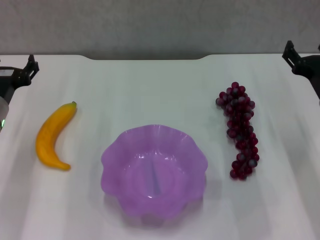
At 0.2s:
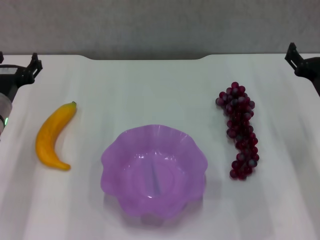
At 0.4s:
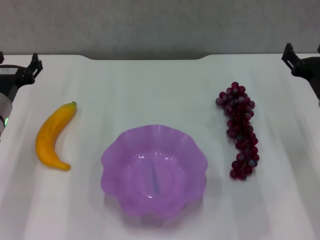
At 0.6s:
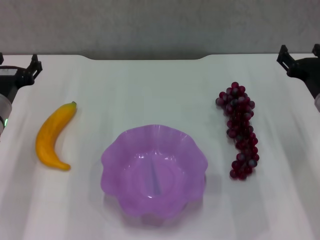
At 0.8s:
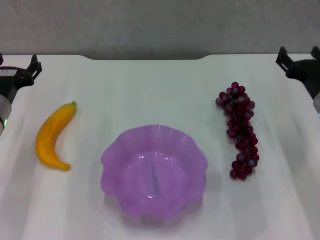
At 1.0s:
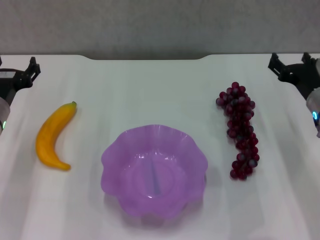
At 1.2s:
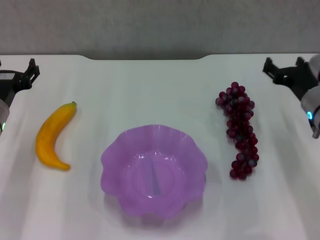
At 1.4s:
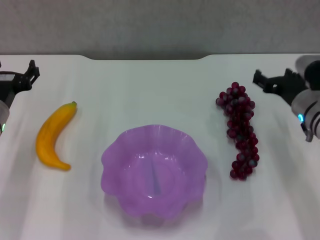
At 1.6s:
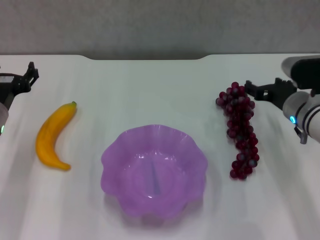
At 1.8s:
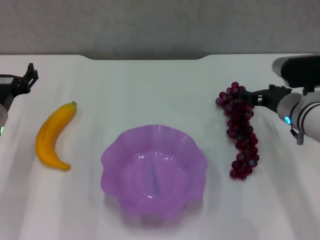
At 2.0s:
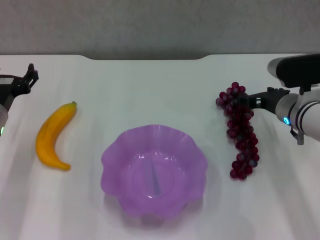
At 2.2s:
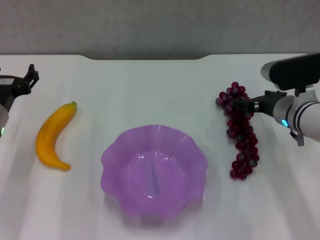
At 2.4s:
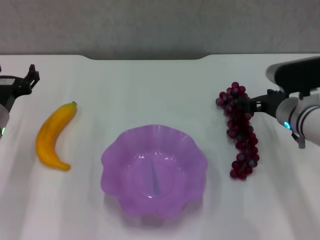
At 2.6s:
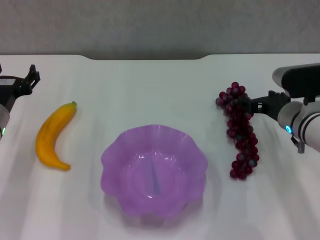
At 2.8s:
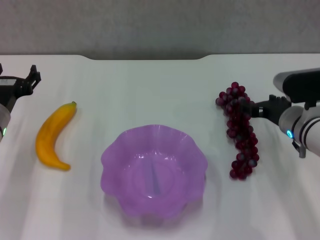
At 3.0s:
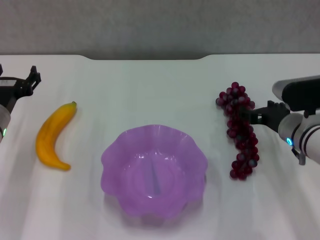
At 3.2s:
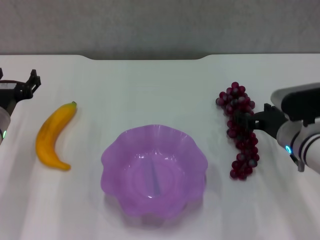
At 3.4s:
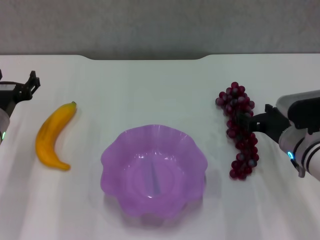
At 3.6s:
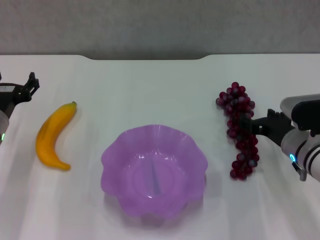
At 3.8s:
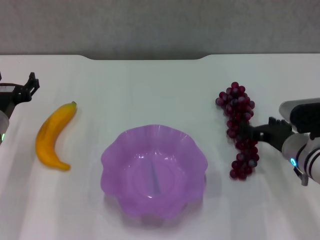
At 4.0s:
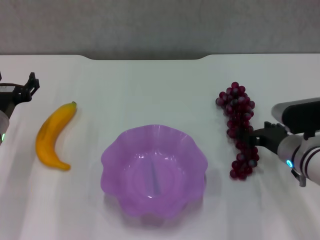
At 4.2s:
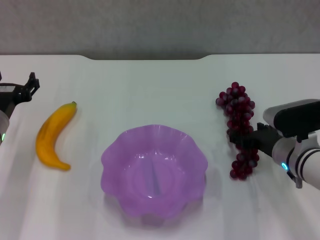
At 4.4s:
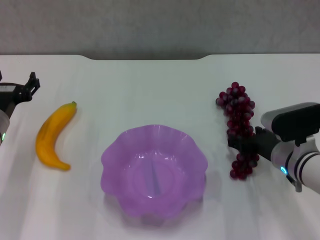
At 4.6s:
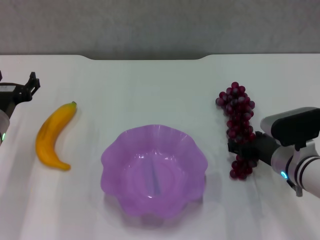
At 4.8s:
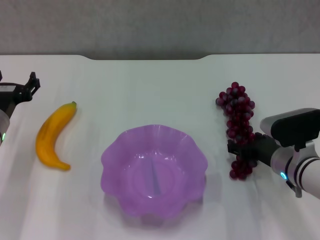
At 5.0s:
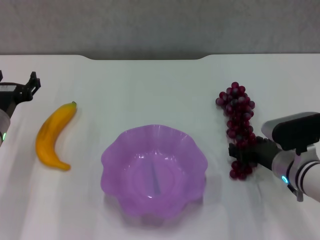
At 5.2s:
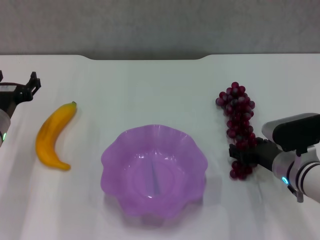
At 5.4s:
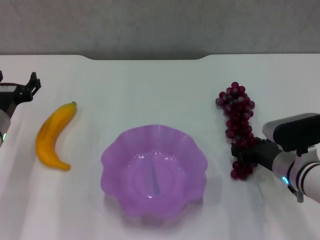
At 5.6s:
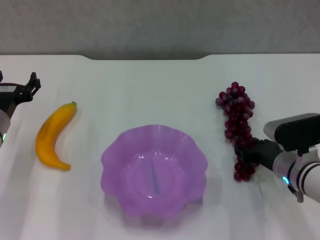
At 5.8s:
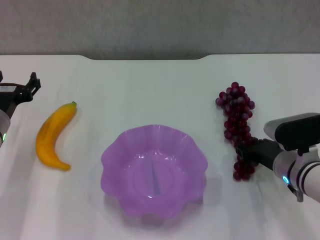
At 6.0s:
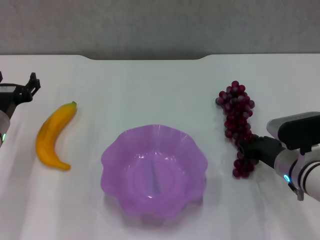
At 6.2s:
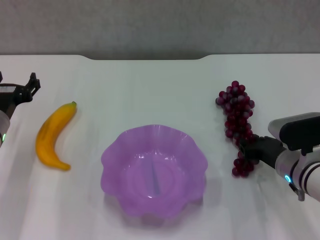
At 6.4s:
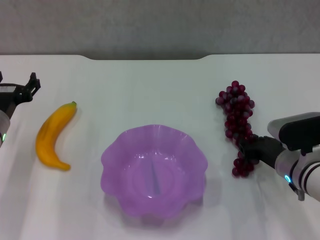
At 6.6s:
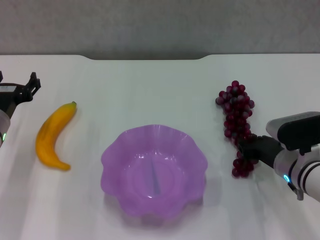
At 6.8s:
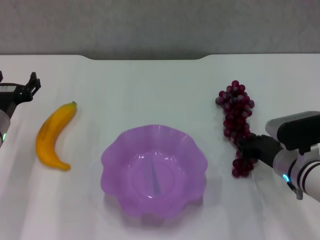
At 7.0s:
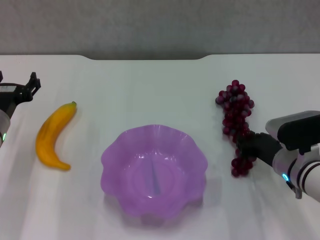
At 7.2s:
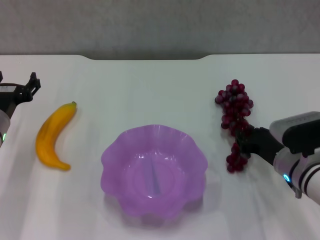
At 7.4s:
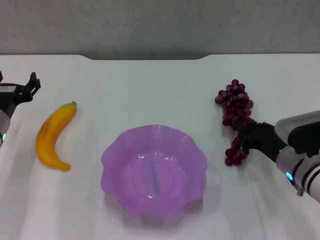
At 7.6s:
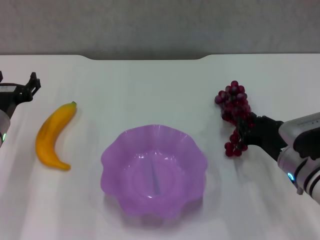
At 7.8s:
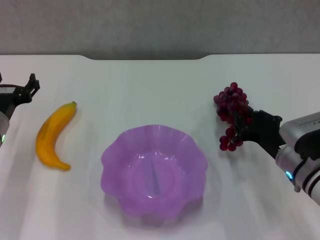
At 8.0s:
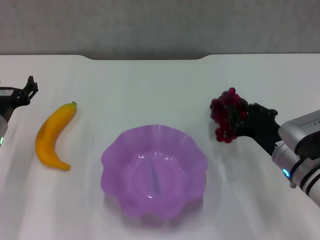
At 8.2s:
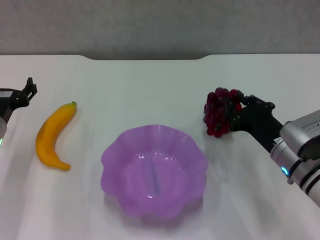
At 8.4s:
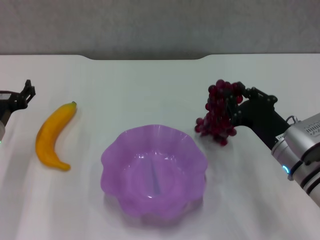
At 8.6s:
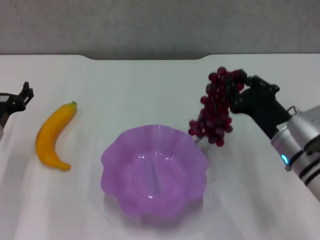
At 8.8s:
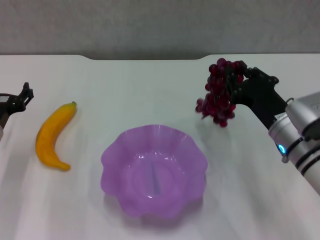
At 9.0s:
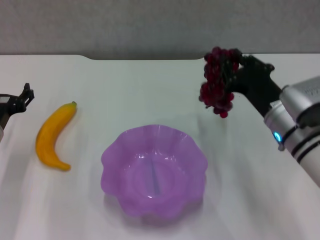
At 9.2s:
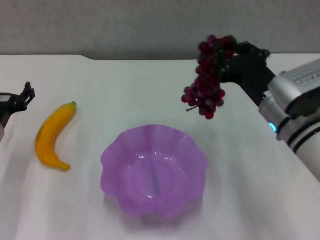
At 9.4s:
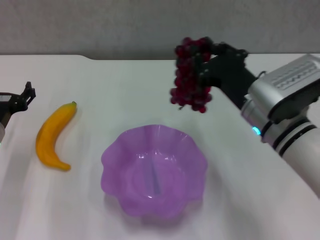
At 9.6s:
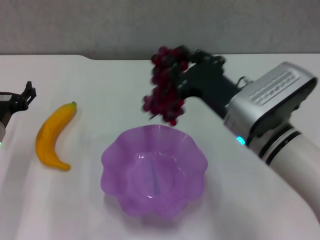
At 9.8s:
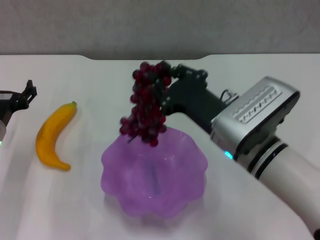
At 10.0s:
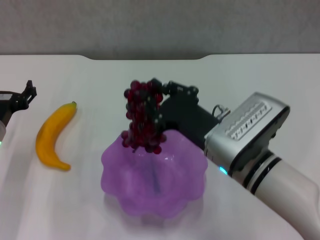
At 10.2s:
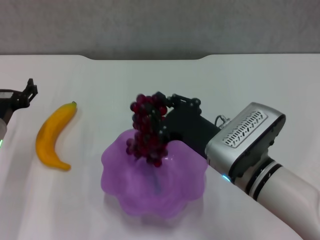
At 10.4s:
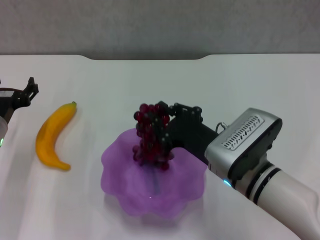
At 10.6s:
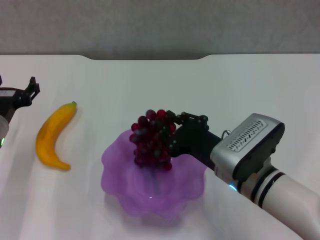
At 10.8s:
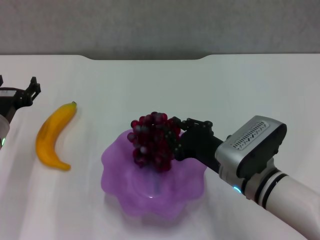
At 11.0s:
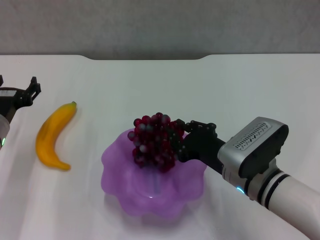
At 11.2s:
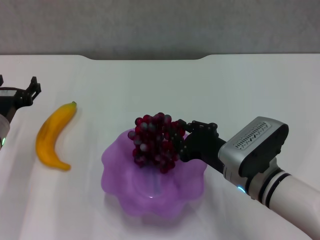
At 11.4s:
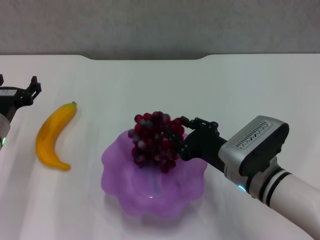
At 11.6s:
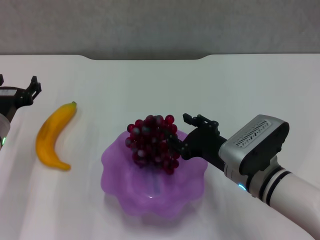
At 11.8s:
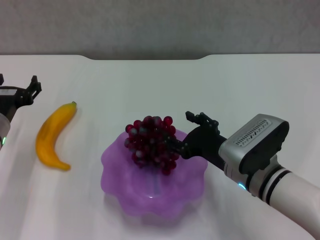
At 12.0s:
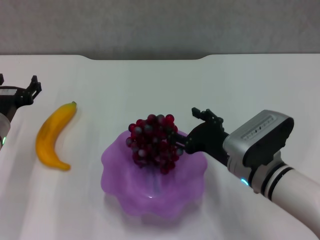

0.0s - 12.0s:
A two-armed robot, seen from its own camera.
Step, 0.0s - 6.0s: Grasp the grape with right gripper.
Step, 6.2s - 11.4s: Place the grape in the purple plate with right gripper.
0.0s - 1.6s: The right gripper moves some 5 cm.
1.6s - 3.0s: There are only small adjustments of the grippers.
3.0s - 4.4s: The grippers make only small movements.
4.4s - 6.0s: The right gripper closes.
6.0s - 7.6s: The grippers stay close to where they were, moving slightly.
7.6s - 9.0s: The right gripper shifts about 5 cm upward.
9.0s - 10.4s: The right gripper goes roughly 5 cm to the left.
10.4s - 12.0s: The right gripper opens up.

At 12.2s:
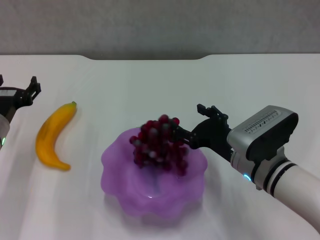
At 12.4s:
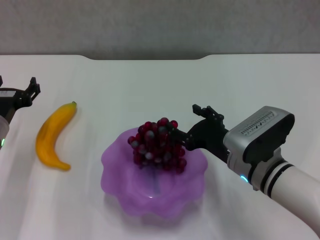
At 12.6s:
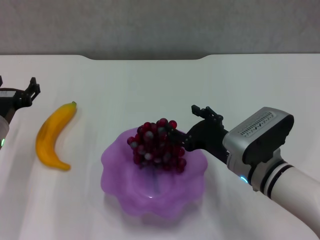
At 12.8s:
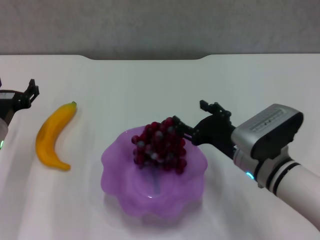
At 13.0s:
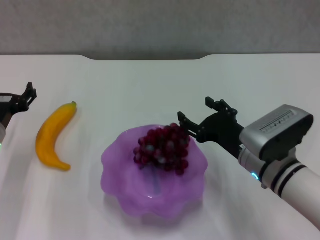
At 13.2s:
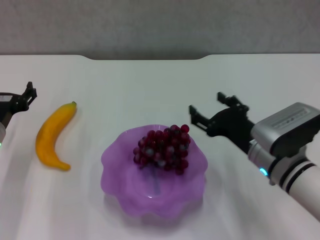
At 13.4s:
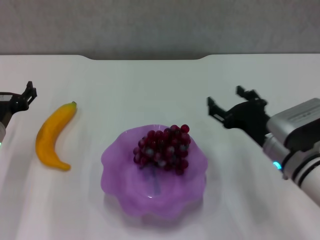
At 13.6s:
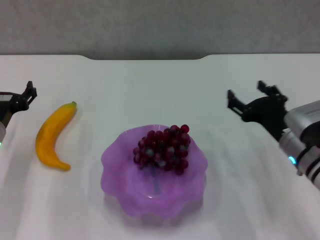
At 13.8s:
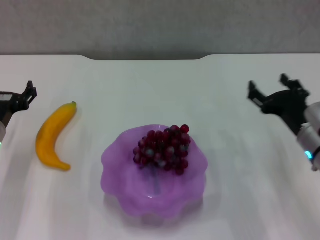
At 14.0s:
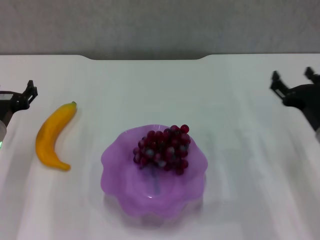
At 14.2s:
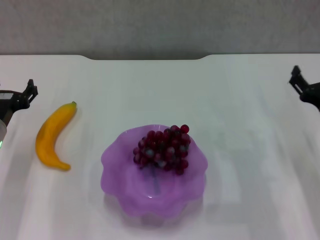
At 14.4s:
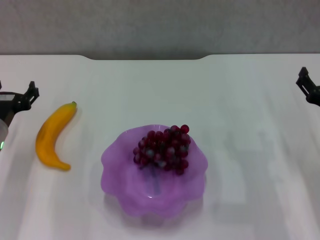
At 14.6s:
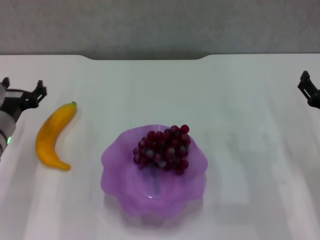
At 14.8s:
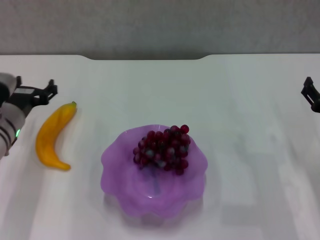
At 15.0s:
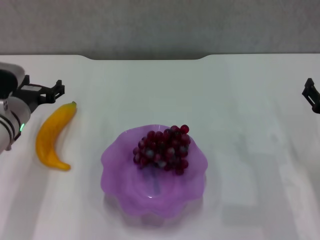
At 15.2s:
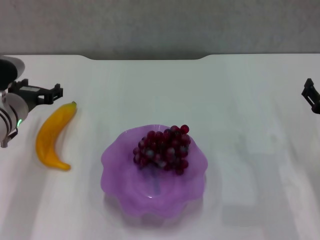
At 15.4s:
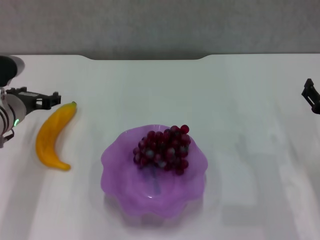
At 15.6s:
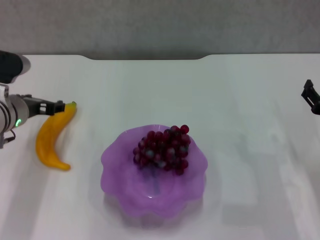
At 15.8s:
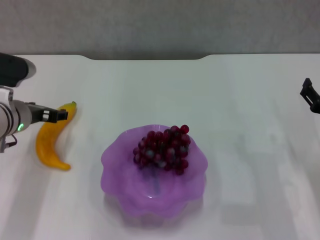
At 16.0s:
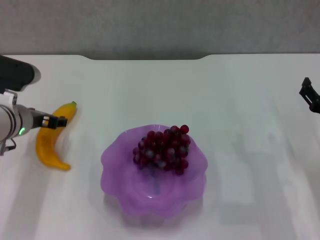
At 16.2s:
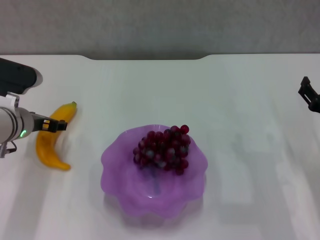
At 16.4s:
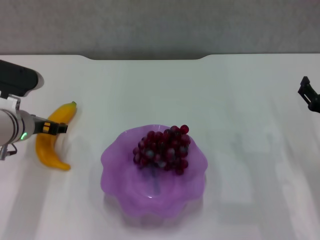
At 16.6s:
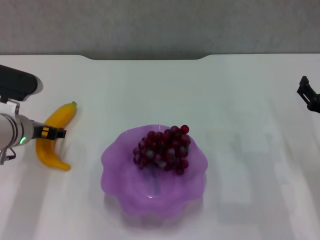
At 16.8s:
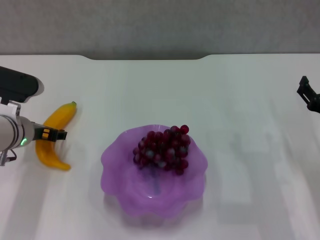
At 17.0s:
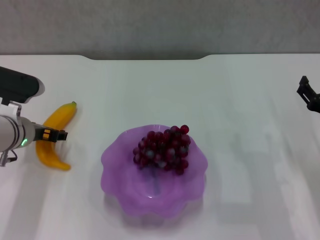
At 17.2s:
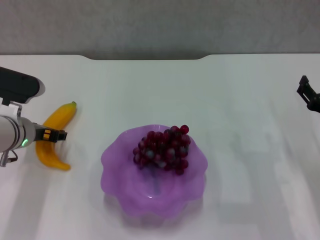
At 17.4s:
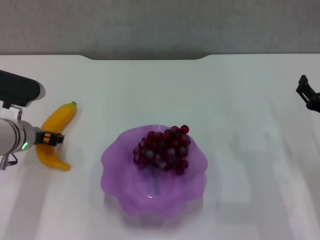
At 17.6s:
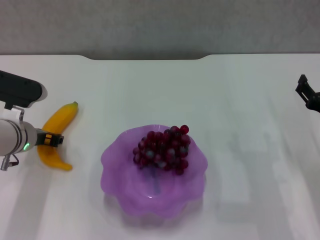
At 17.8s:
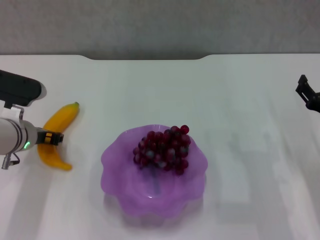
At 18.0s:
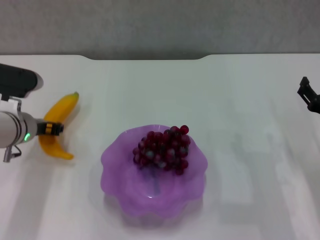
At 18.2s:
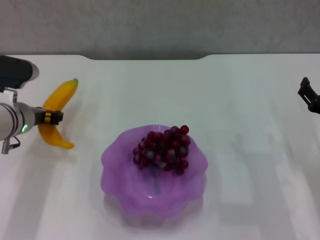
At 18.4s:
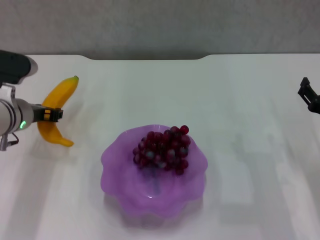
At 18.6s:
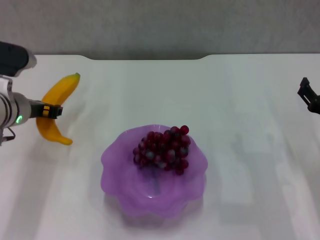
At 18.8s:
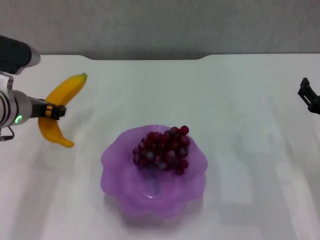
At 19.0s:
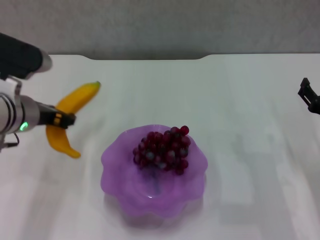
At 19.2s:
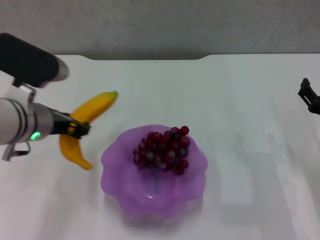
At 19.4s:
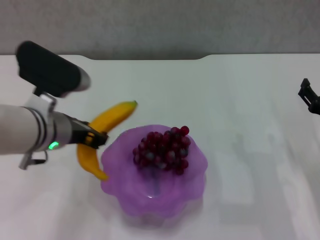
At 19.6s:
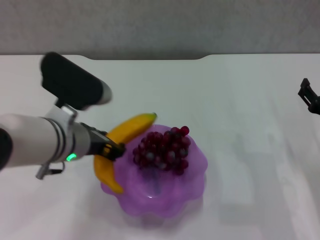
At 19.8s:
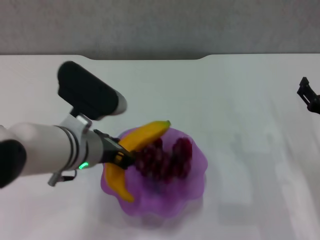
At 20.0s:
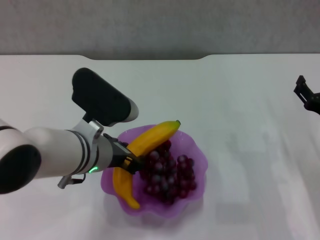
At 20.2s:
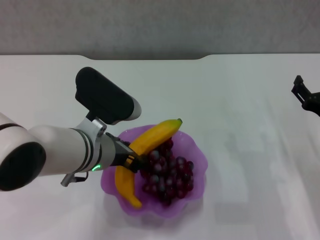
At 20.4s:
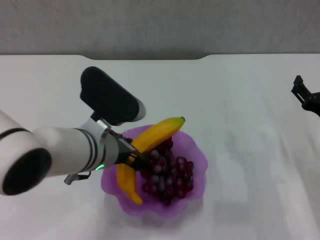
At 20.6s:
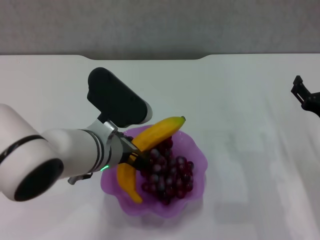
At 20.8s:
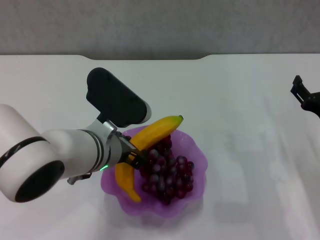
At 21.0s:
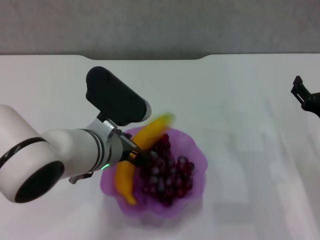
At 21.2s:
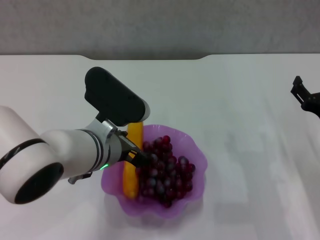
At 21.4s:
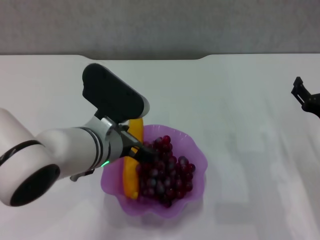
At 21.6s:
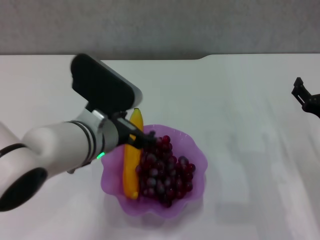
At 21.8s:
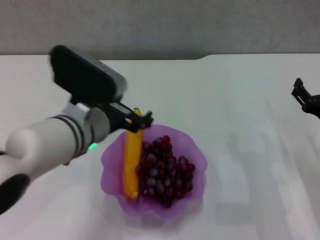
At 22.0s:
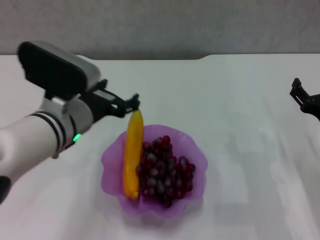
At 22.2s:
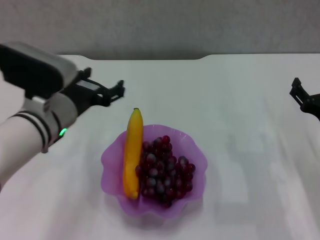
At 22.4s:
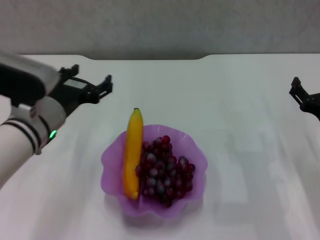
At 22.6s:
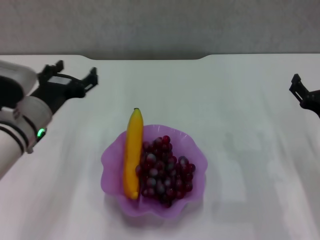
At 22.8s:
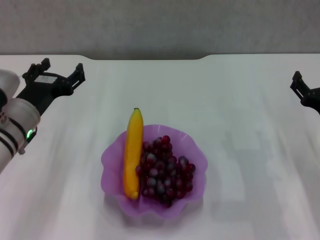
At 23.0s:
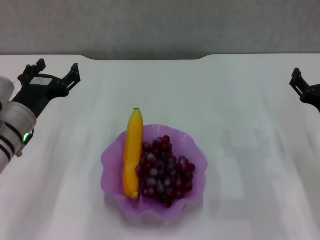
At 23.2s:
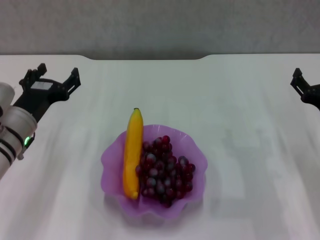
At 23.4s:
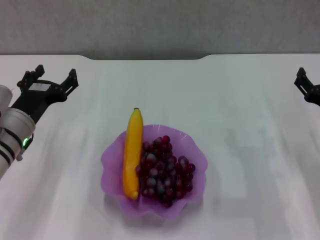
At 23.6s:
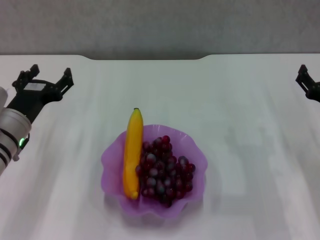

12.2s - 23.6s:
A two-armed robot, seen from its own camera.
Step, 12.2s - 17.8s: Grasp the banana with left gripper.
Step, 18.0s - 21.2s: Place the banana in the purple plate with left gripper.
12.2s - 13.6s: The right gripper travels to the right by approximately 5 cm.
13.6s - 15.0s: The left gripper shifts by approximately 5 cm. Meanwhile the right gripper heads to the right, covering approximately 10 cm.
16.4s - 17.8s: The left gripper closes its fingers.
17.8s - 19.4s: The left gripper travels upward, to the right and backward by approximately 15 cm.
19.4s - 20.8s: The left gripper travels to the right by roughly 5 cm.
20.8s - 22.2s: The left gripper shifts roughly 5 cm to the left, and opens up.
22.2s - 23.6s: The left gripper goes some 10 cm to the left and downward.
